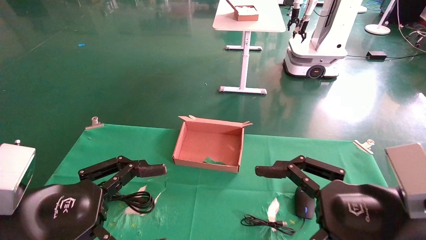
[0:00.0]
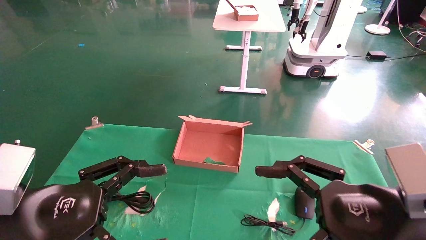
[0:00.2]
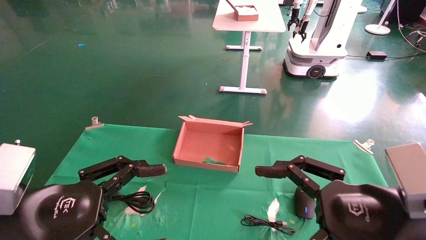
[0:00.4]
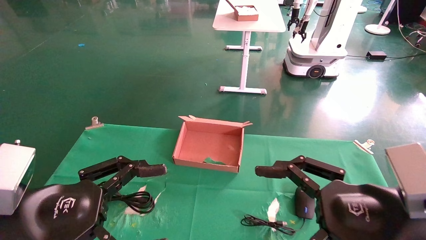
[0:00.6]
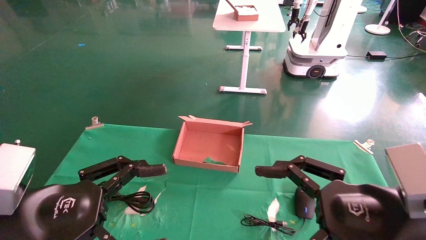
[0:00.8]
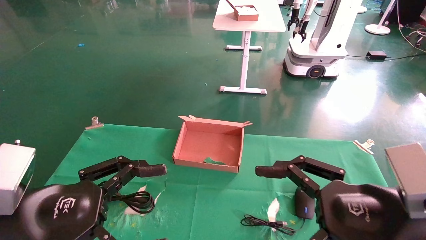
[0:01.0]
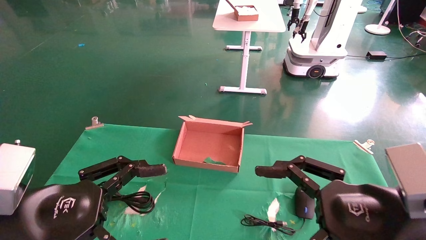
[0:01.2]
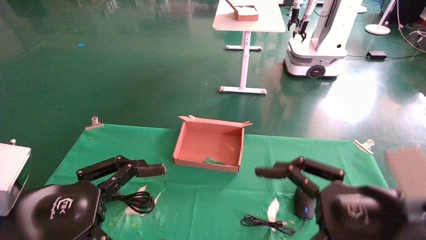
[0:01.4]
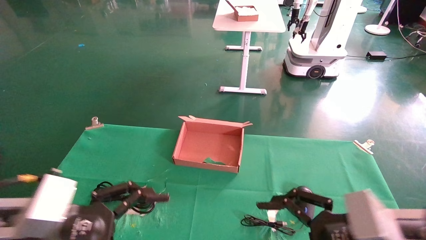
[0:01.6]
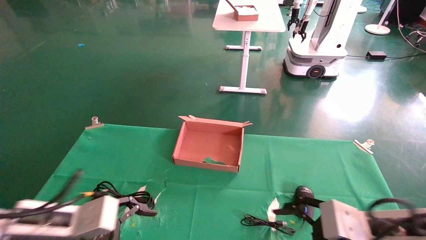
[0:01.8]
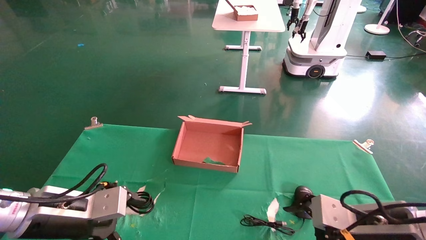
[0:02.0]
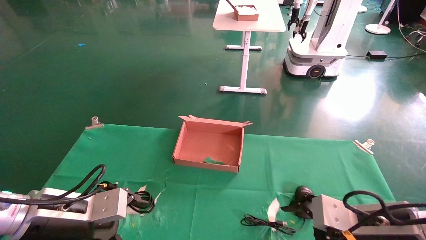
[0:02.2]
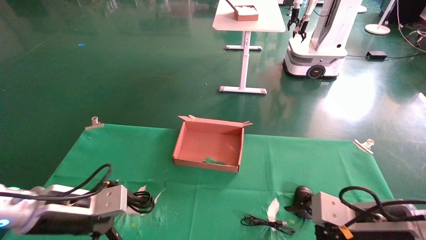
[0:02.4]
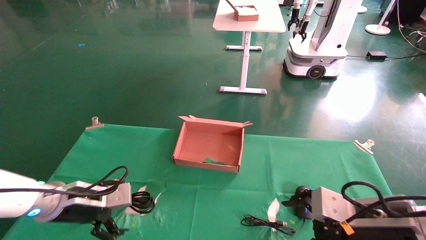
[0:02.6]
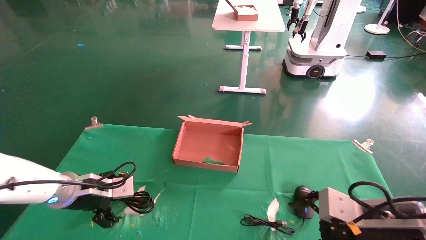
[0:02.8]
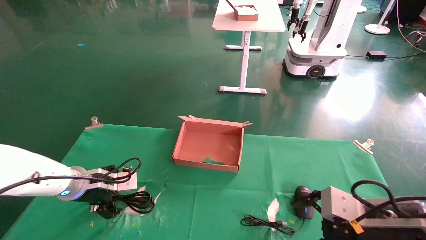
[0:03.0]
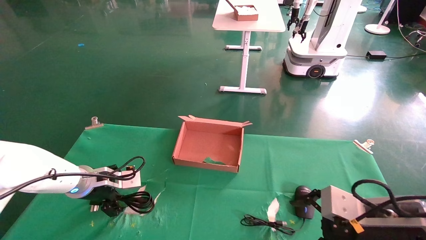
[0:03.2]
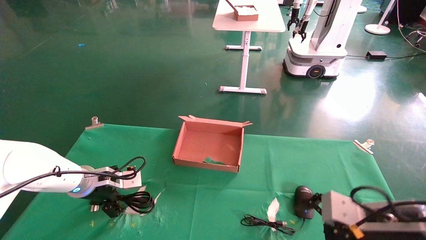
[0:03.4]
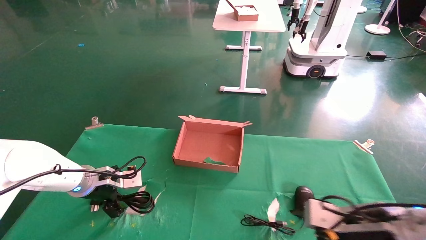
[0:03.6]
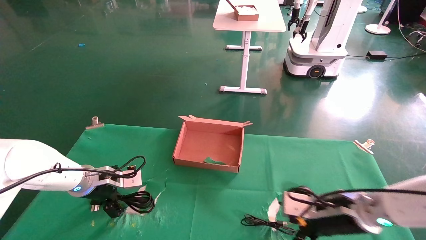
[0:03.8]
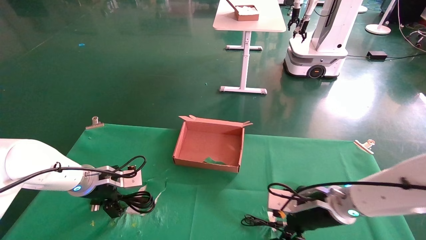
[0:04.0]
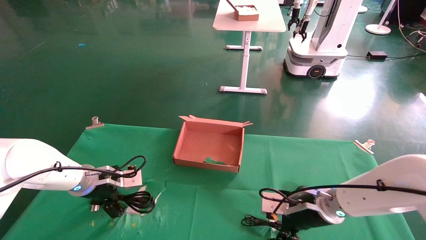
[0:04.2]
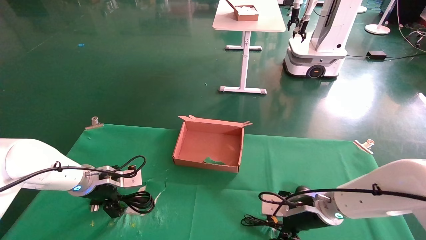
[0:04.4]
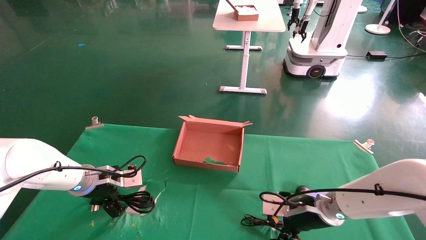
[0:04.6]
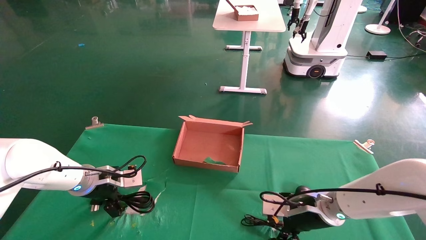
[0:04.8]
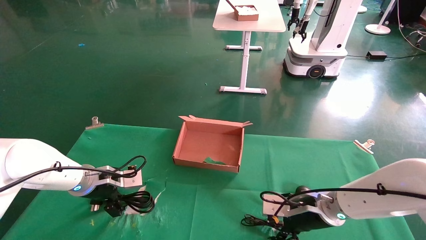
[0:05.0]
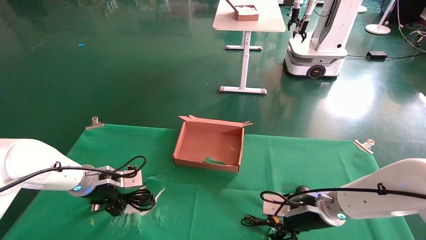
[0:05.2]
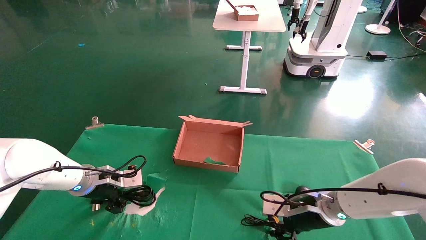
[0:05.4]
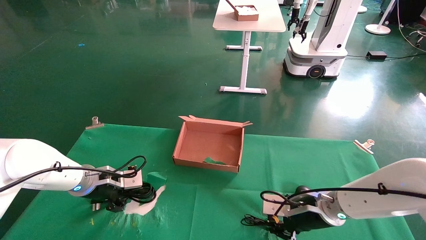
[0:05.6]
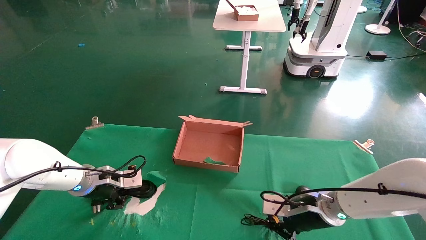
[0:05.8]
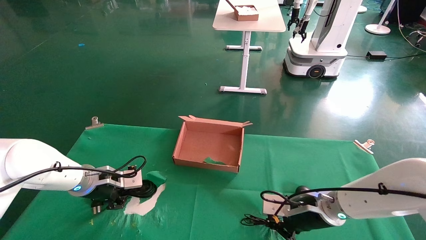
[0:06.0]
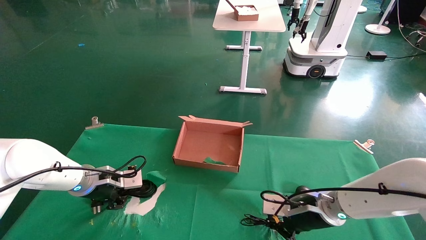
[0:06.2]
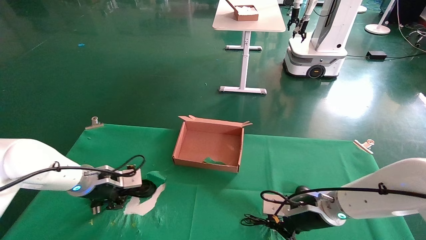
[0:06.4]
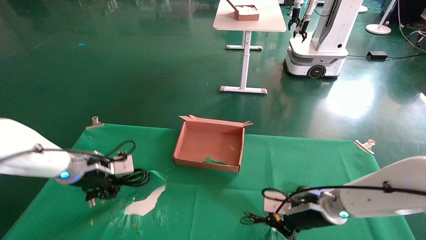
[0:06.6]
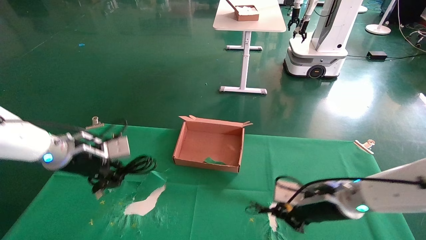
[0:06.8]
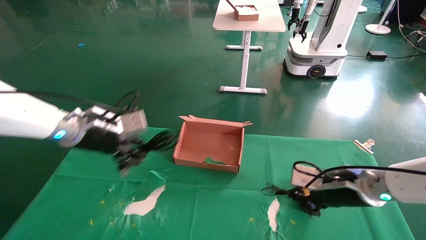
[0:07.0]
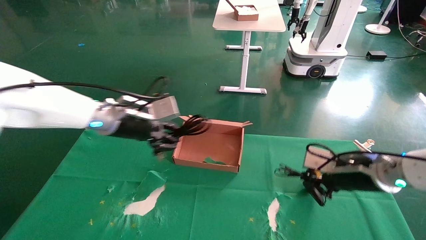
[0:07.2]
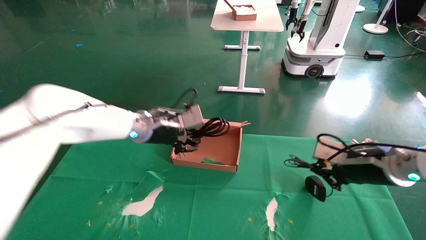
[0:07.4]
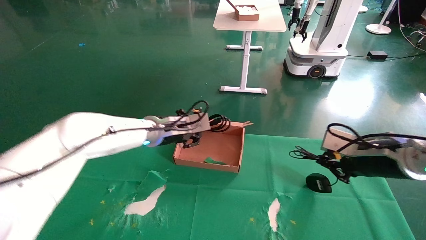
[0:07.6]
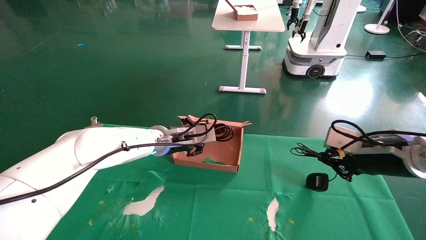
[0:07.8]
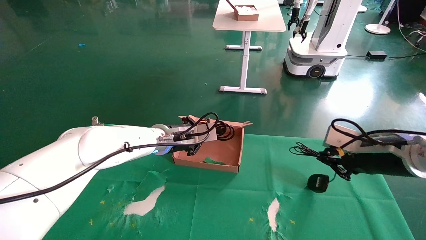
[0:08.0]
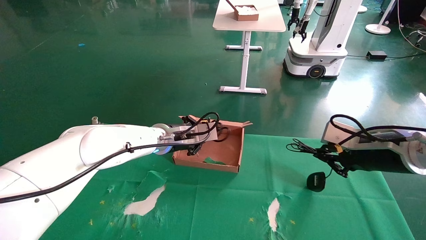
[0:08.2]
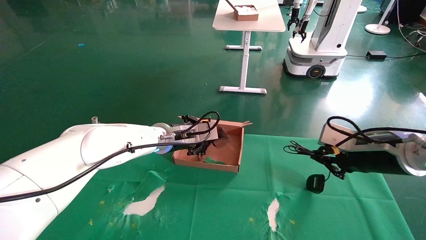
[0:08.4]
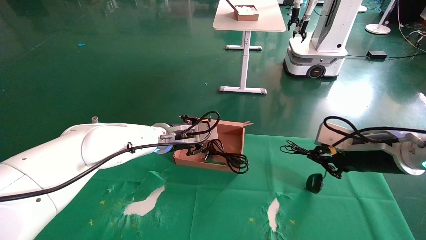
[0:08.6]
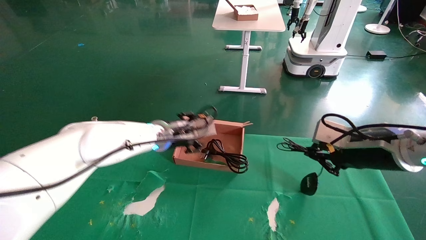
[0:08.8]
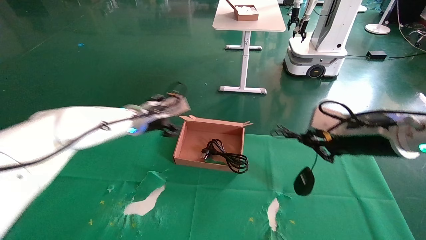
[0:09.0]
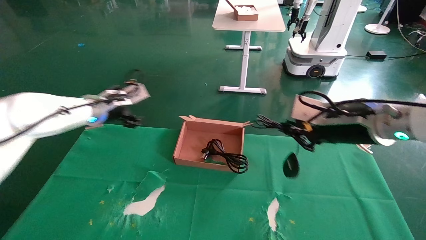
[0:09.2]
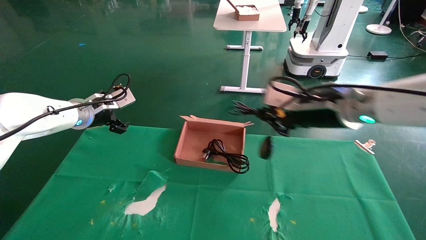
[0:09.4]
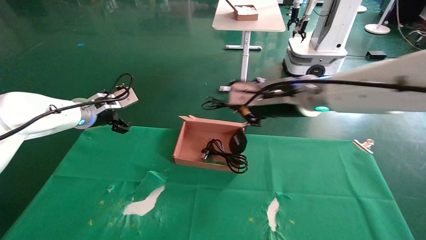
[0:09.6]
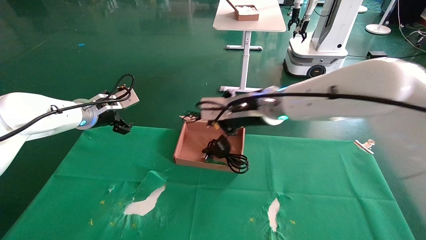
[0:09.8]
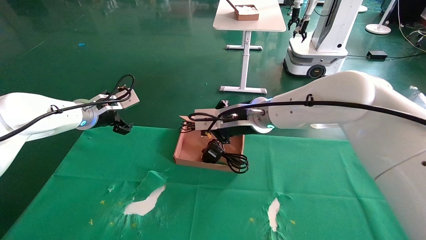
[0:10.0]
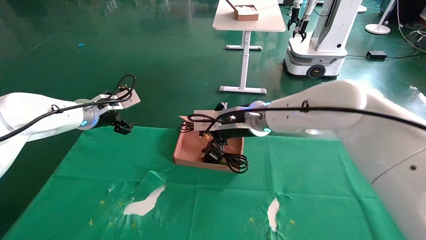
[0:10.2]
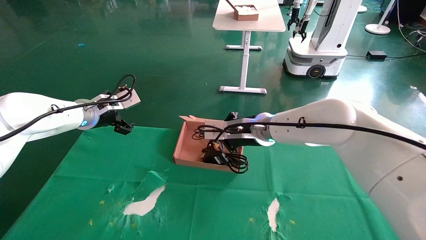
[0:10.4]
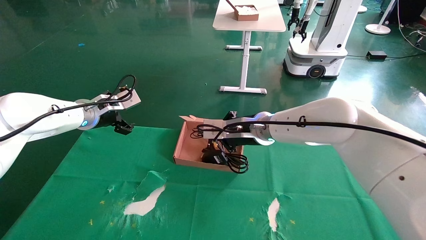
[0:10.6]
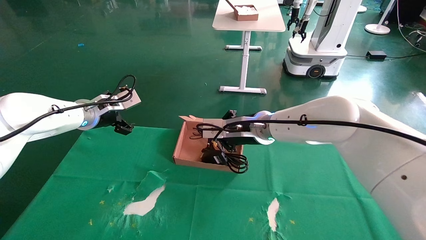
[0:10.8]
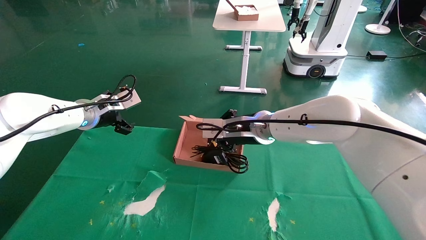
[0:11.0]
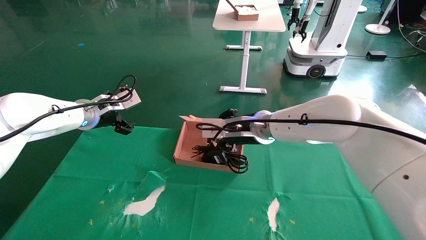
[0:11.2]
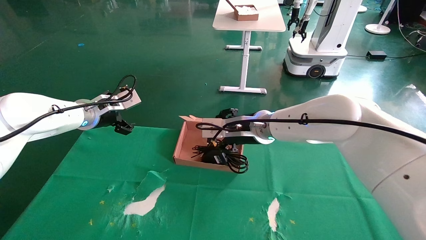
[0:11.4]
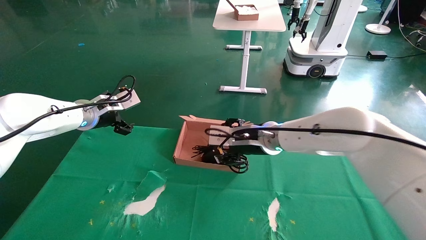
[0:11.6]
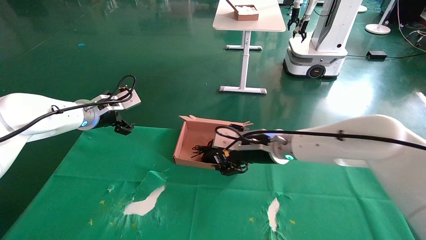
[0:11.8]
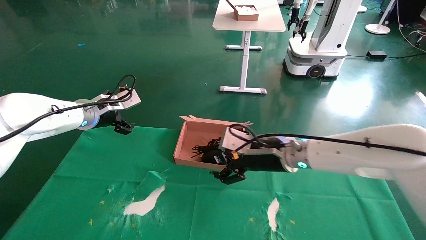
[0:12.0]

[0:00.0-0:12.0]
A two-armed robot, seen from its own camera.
Step, 0:02.0 to 0:06.6: Grab and lift both the mouse and power cord from the accessory packaging area at the same time.
Step, 0:06.8 to 0:11.8: Place the mouse and power cord into the box.
0:00.0 to 0:01.6: The right gripper moves roughly 5 cm.
0:01.6 to 0:03.0: The right gripper ends up roughly 5 cm from where it was, while the left gripper moves forward, some 20 cm.
0:03.0 to 0:04.4: The right gripper is displaced forward, to the left and downward by about 15 cm.
0:04.4 to 0:06.0: The right gripper closes up; the left gripper closes up.
0:06.0 to 0:07.6: The right gripper is displaced upward and to the right by roughly 15 cm, while the left gripper is displaced to the right and upward by about 20 cm.
0:07.6 to 0:09.0: The left gripper shifts some 5 cm to the left, and opens its fingers. Meanwhile the right gripper goes roughly 5 cm upward.
0:09.0 to 0:10.4: The right gripper heads to the left and forward, covering some 25 cm. The left gripper travels to the left by about 10 cm.
0:10.4 to 0:12.0: The right gripper heads to the right, covering roughly 5 cm, and opens up.

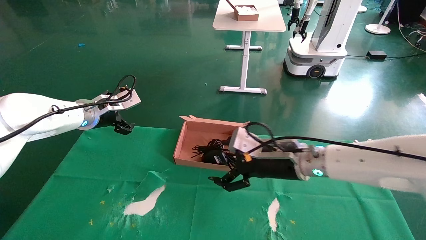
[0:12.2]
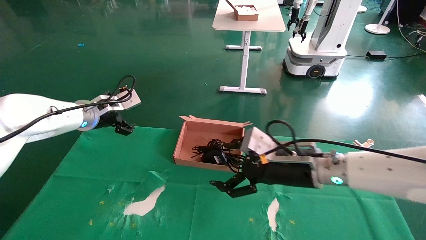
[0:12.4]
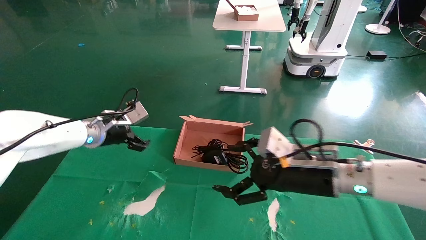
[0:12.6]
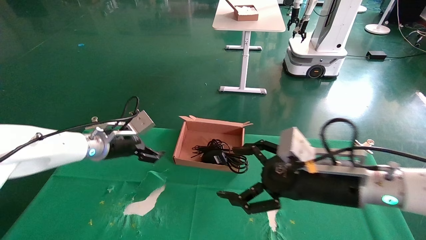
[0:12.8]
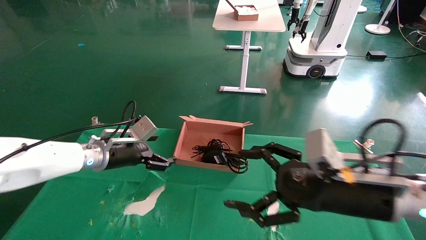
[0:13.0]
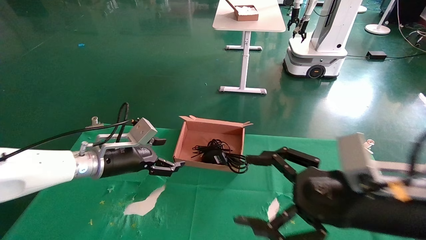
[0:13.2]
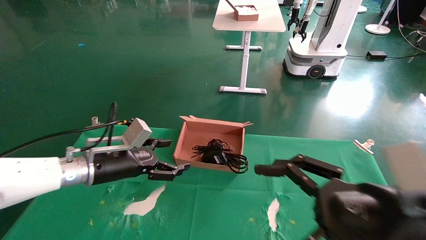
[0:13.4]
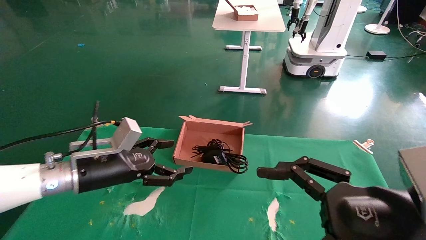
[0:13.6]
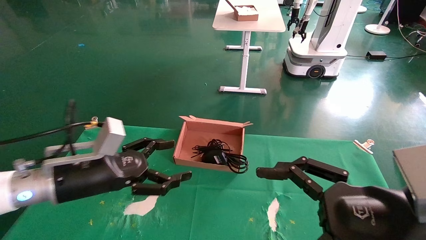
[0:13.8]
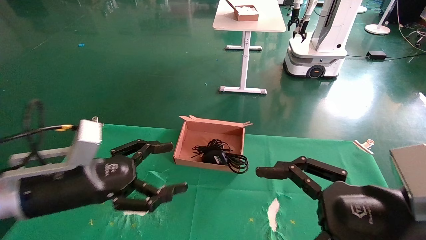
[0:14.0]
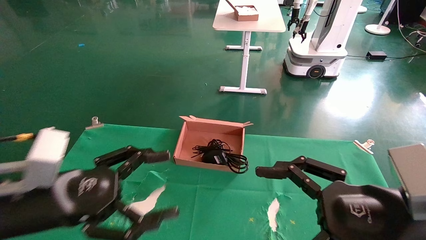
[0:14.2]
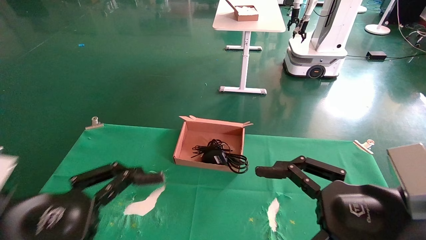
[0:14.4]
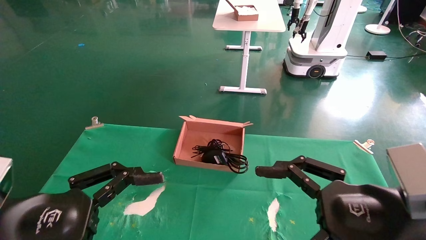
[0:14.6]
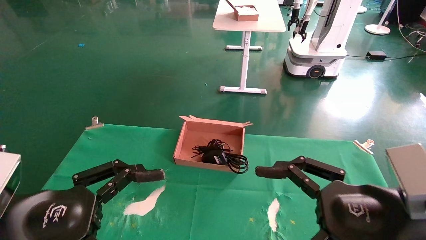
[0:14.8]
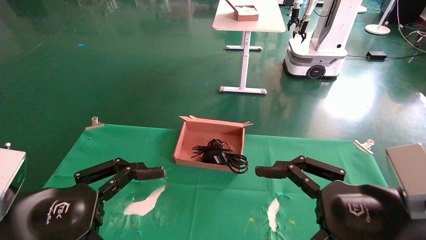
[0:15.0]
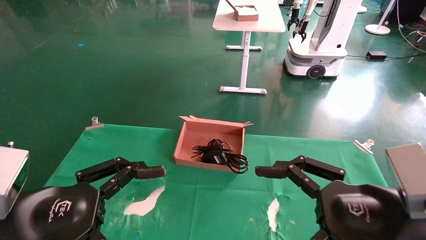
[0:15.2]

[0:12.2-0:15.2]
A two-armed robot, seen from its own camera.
0:12.2 to 0:13.8: The right gripper goes some 20 cm backward and to the right. Meanwhile the left gripper moves backward and downward, some 20 cm.
0:13.8 to 0:15.2: The left gripper moves backward, roughly 15 cm.

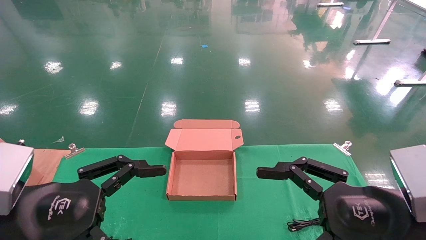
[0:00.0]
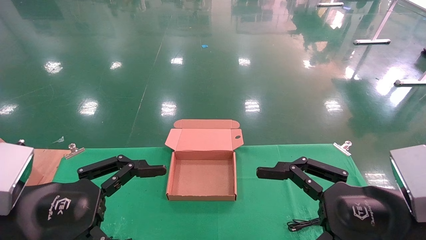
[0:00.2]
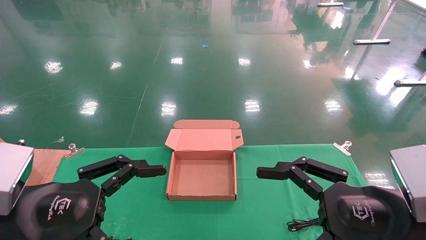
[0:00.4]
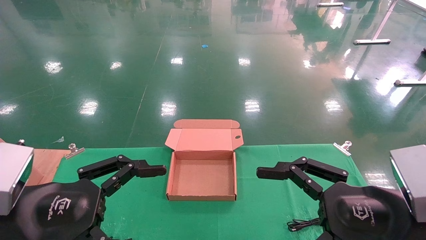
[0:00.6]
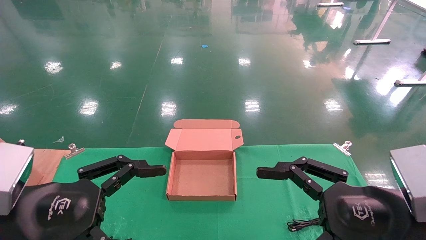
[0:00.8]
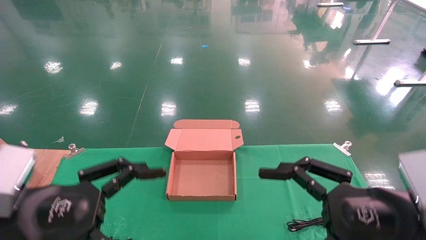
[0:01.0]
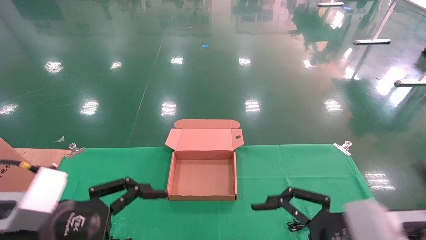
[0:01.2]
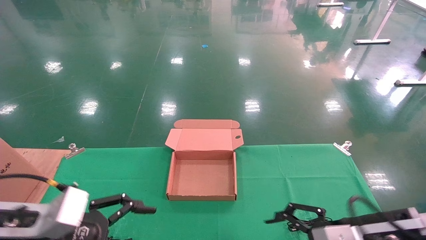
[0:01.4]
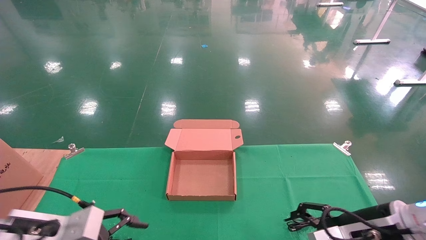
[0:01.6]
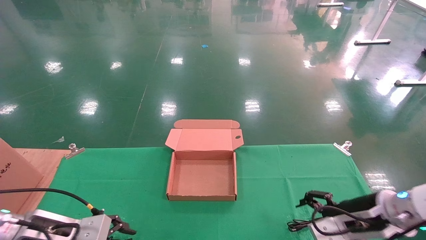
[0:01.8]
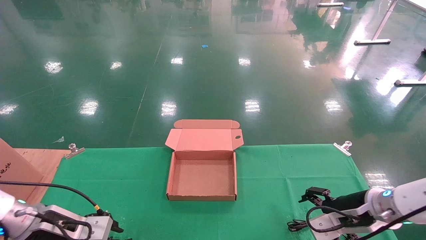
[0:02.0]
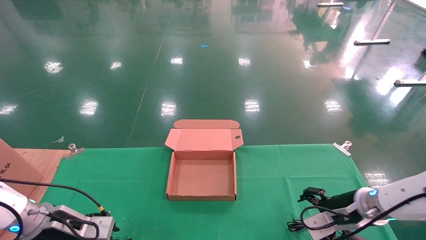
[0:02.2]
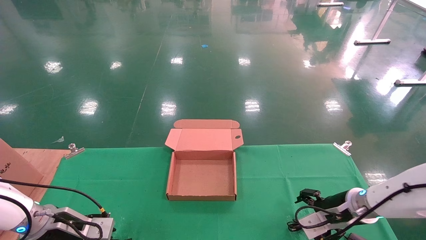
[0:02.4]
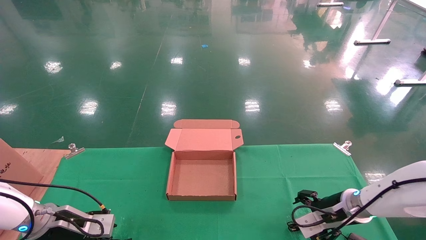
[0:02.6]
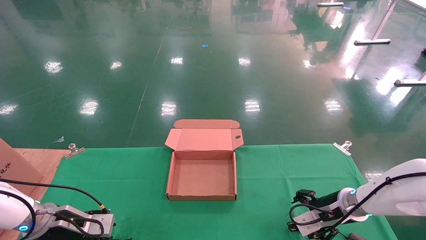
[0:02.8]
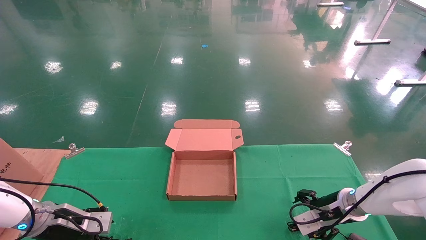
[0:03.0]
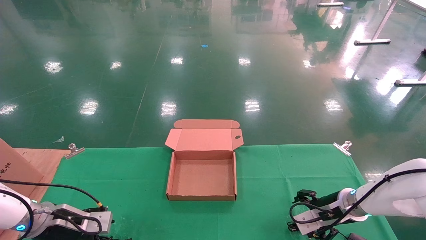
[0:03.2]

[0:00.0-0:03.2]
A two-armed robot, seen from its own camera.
0:00.0 to 0:01.6: The left gripper goes some 15 cm downward and forward; the right gripper heads forward and downward, covering about 15 cm.
0:01.6 to 0:03.2: The right gripper goes roughly 15 cm forward and downward; the left gripper moves forward, downward and to the left, some 15 cm.
